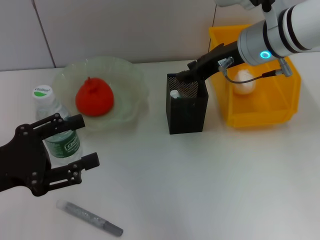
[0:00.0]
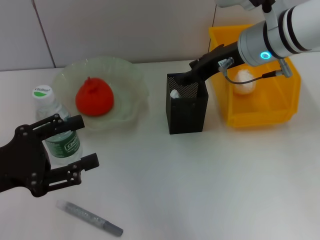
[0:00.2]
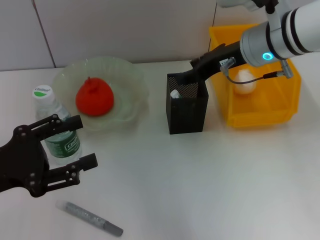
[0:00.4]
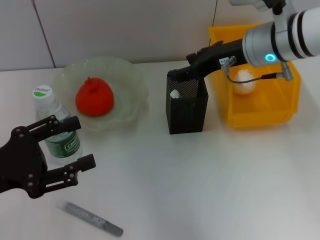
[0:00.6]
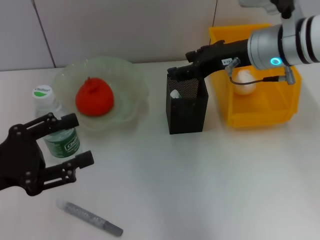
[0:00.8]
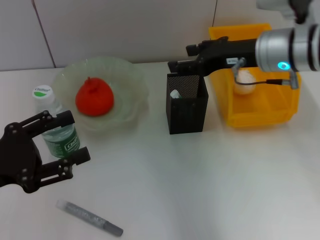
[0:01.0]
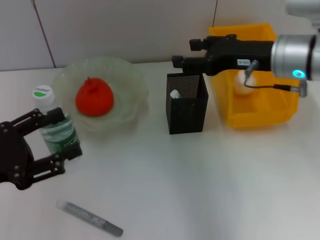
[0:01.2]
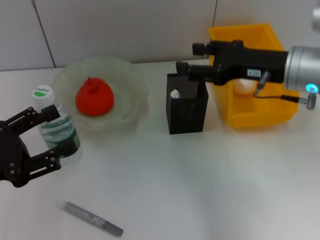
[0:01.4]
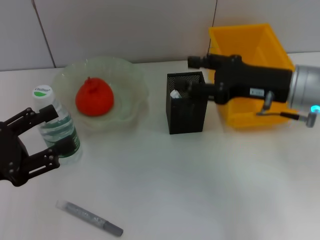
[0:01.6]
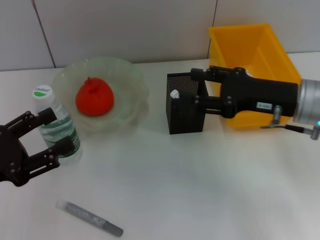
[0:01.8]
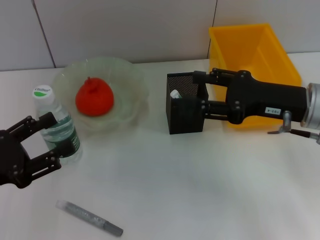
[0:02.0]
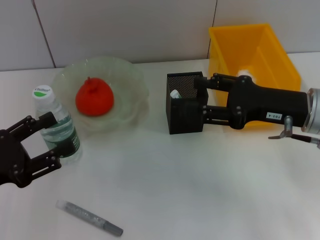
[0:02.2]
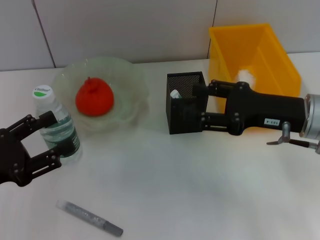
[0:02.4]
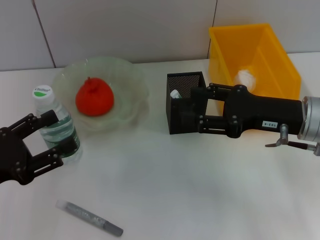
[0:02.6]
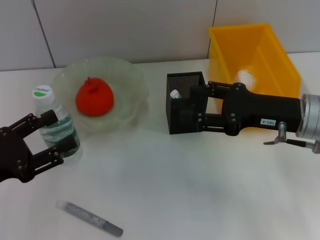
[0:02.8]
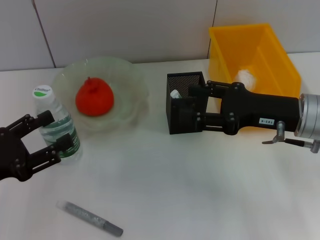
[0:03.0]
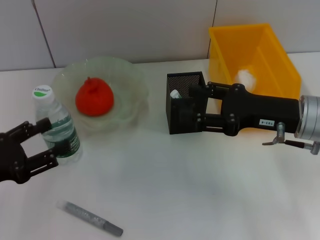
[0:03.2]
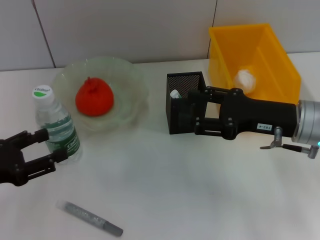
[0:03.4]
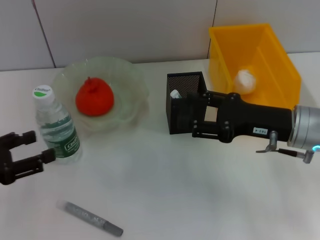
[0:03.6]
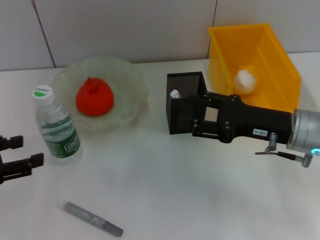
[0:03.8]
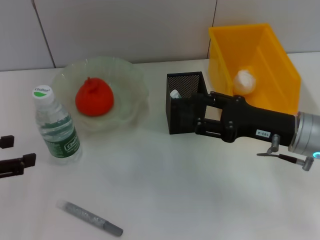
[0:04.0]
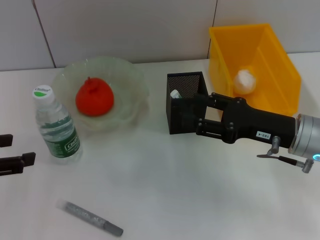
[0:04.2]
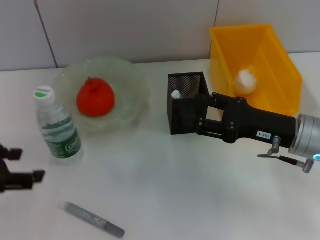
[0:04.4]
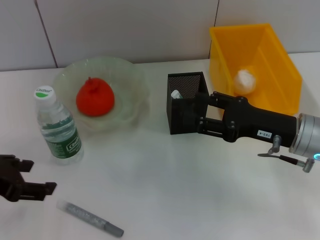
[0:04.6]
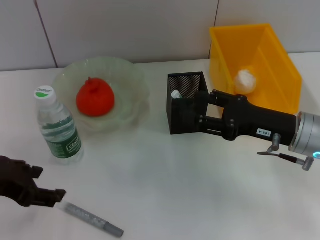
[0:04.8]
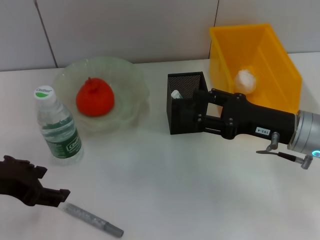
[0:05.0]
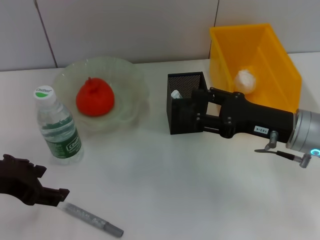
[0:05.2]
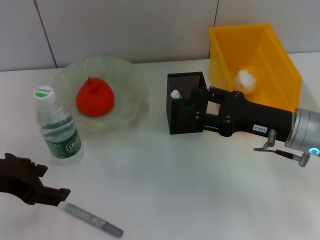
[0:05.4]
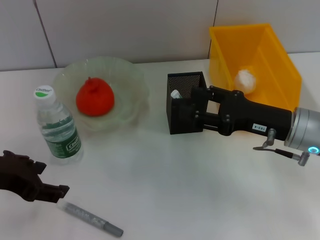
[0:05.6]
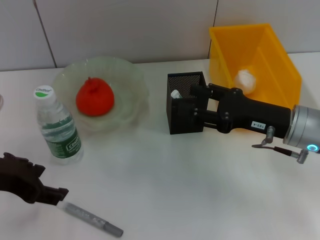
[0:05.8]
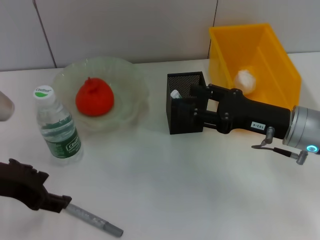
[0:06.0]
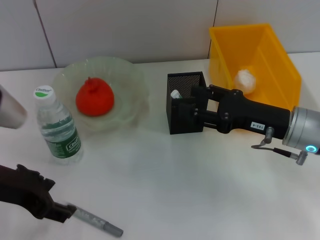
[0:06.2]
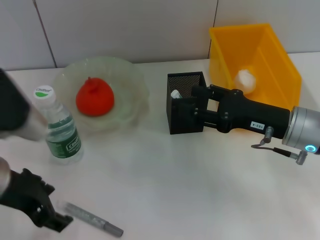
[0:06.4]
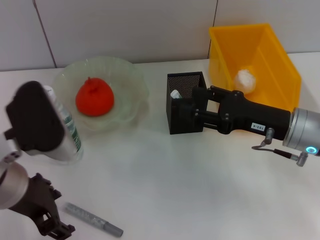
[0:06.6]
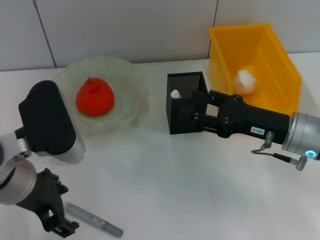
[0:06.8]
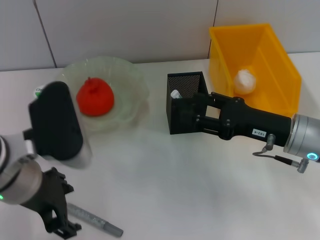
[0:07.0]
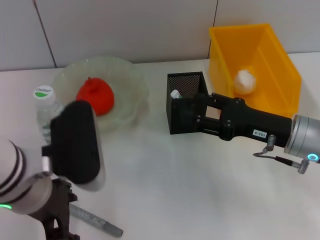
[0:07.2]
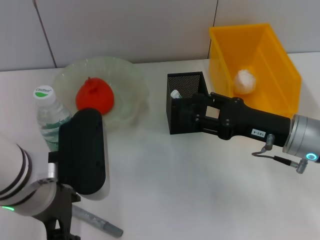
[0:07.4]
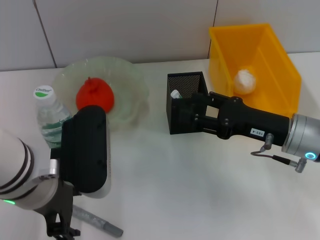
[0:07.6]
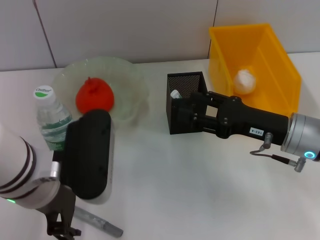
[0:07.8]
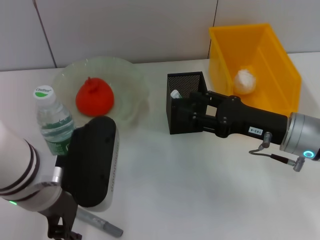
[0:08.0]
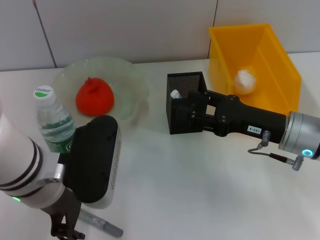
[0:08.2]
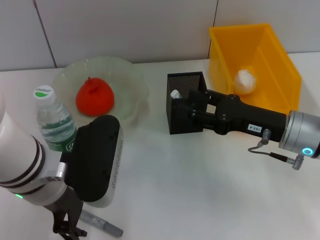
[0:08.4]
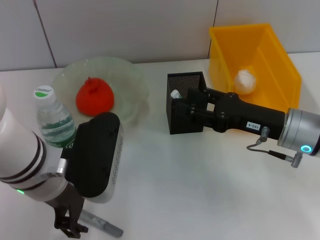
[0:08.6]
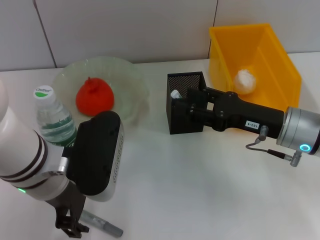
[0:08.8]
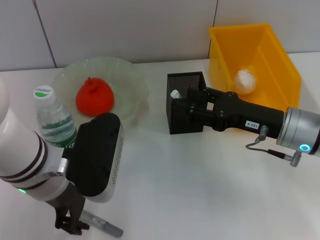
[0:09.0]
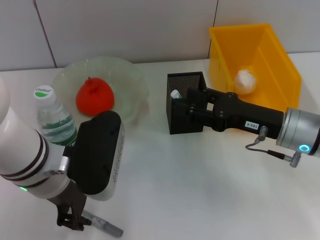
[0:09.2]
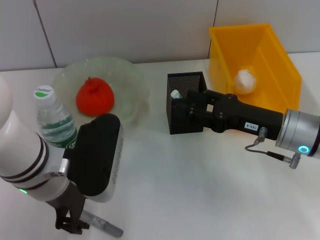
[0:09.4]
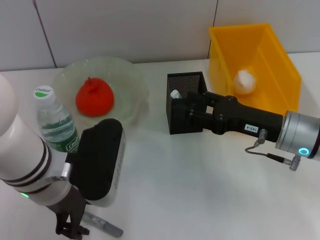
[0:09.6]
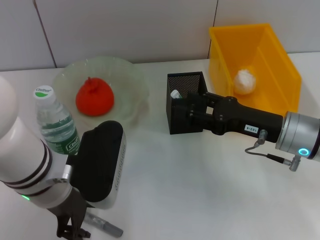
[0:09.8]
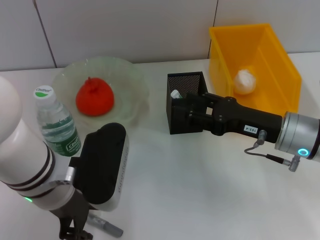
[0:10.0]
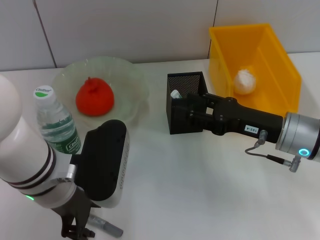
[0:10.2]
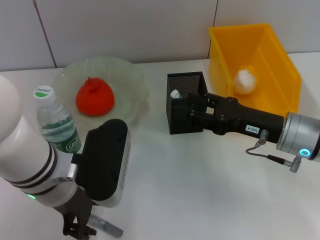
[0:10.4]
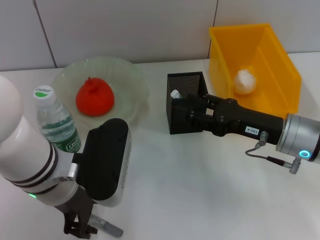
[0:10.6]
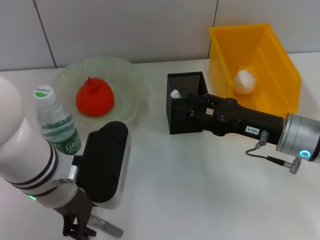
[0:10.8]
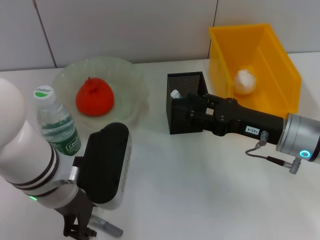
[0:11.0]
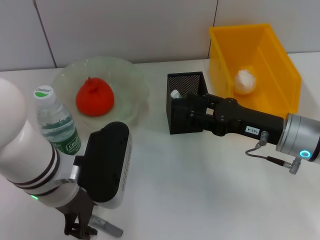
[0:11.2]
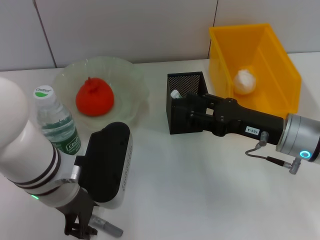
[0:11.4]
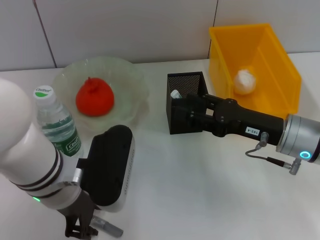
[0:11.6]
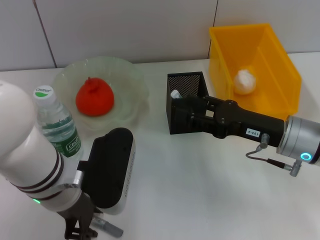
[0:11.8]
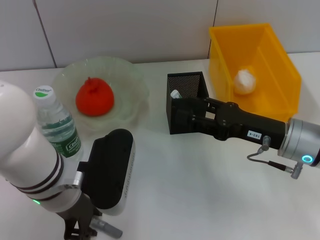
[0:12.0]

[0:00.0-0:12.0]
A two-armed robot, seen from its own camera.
0:00.0 to 0:01.6: The right gripper heads backward and to the right, covering about 10 cm, and opens its fingers.
0:01.6 to 0:03.0: The grippers stay close to where they were, moving slightly.
0:03.0 to 0:04.4: The left gripper shifts approximately 10 cm upward.
0:04.4 to 0:06.0: The left gripper travels to the right by roughly 5 cm.
0:06.0 to 0:07.6: The left gripper moves to the right, roughly 10 cm.
0:07.6 to 0:09.0: The grippers make only small movements.
0:09.0 to 0:10.4: Both grippers stay about where they are.
0:10.4 to 0:12.0: Neither gripper changes place.

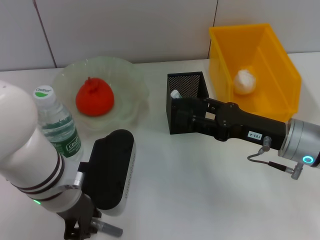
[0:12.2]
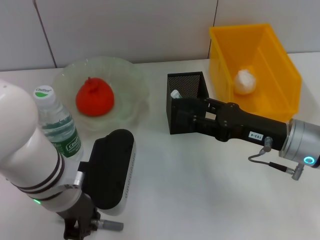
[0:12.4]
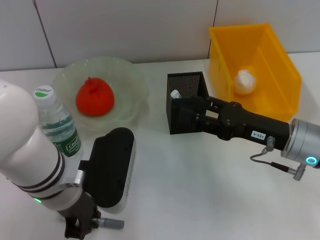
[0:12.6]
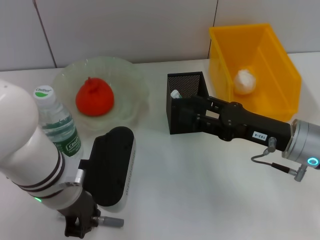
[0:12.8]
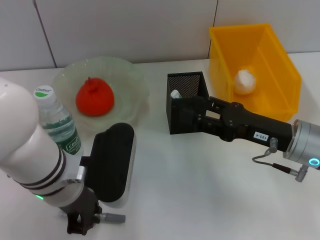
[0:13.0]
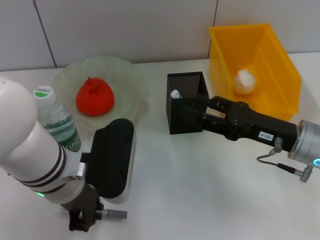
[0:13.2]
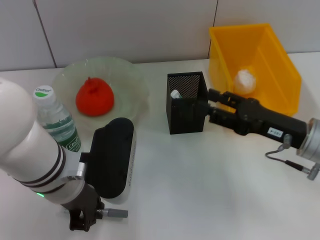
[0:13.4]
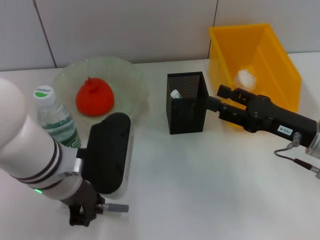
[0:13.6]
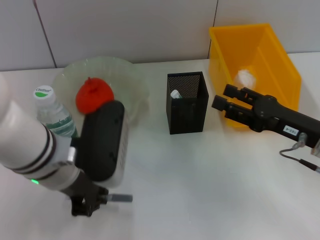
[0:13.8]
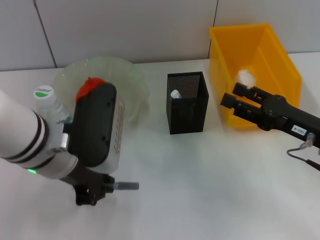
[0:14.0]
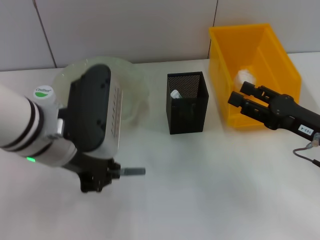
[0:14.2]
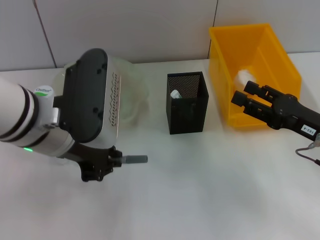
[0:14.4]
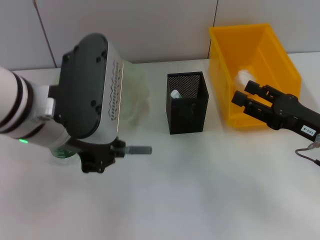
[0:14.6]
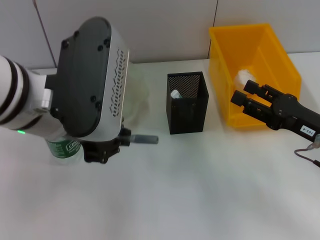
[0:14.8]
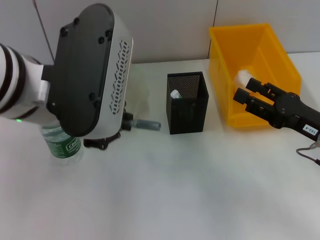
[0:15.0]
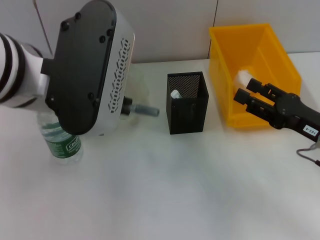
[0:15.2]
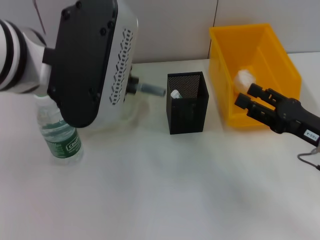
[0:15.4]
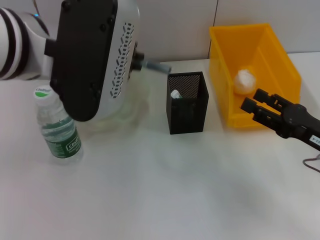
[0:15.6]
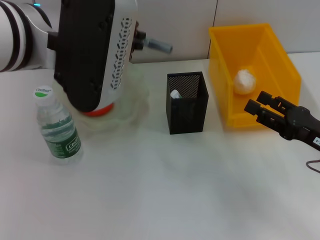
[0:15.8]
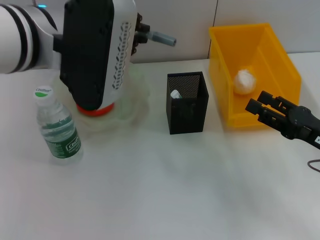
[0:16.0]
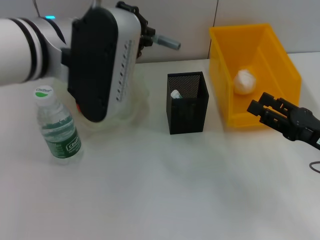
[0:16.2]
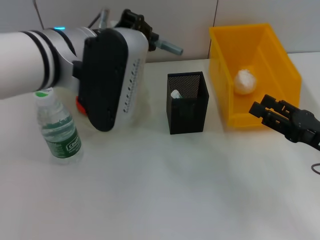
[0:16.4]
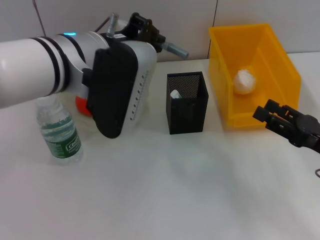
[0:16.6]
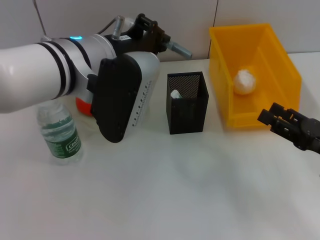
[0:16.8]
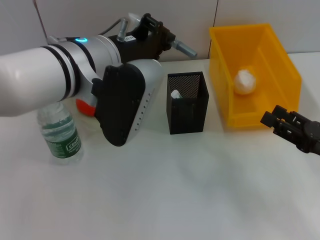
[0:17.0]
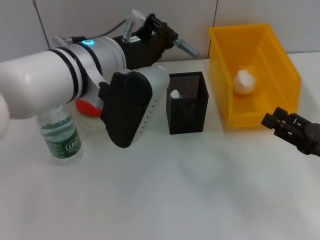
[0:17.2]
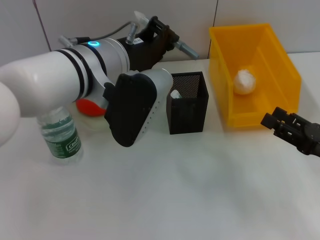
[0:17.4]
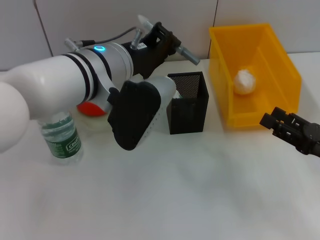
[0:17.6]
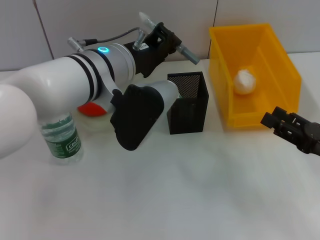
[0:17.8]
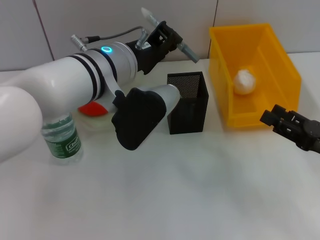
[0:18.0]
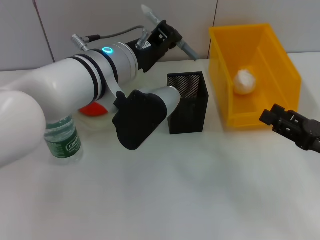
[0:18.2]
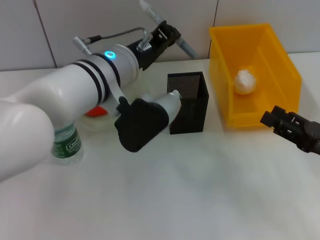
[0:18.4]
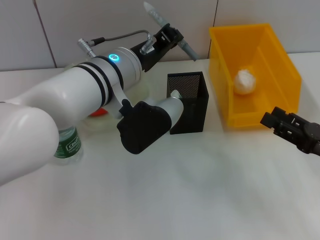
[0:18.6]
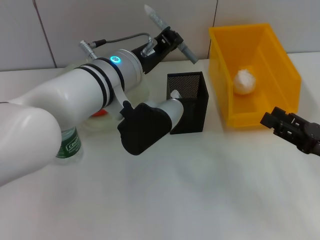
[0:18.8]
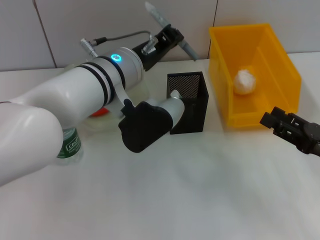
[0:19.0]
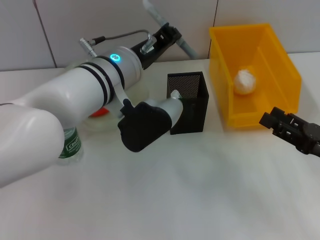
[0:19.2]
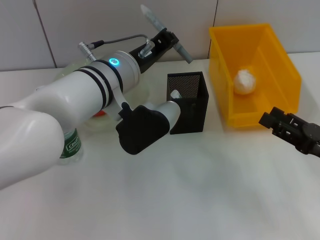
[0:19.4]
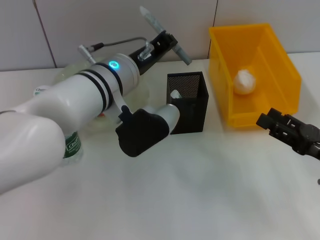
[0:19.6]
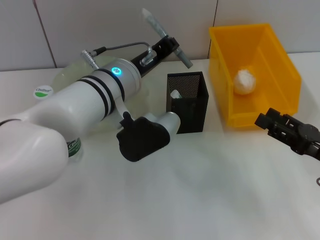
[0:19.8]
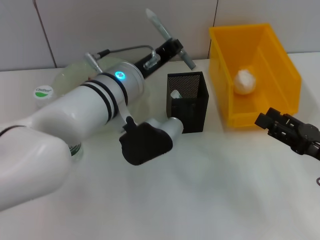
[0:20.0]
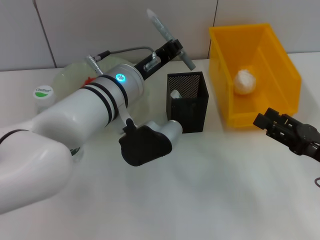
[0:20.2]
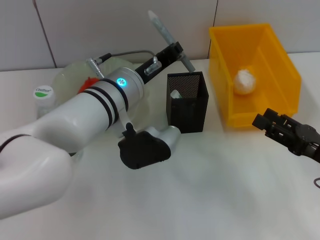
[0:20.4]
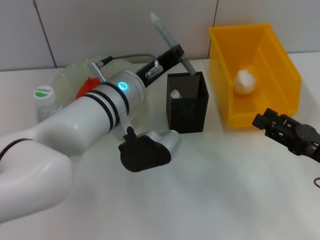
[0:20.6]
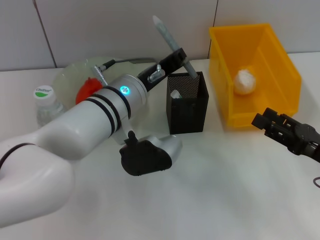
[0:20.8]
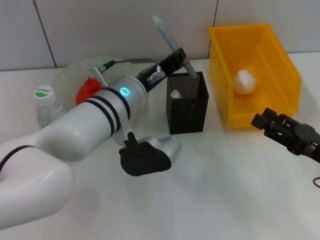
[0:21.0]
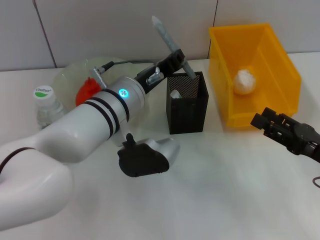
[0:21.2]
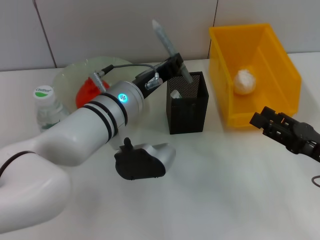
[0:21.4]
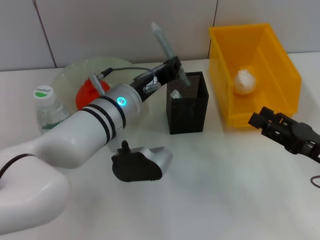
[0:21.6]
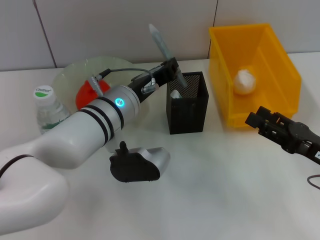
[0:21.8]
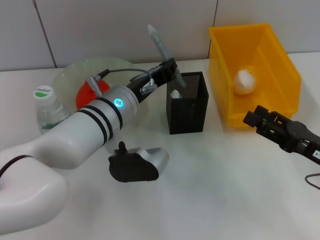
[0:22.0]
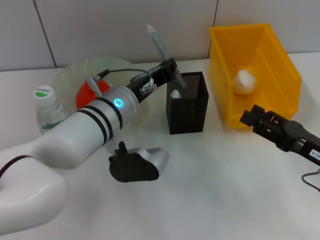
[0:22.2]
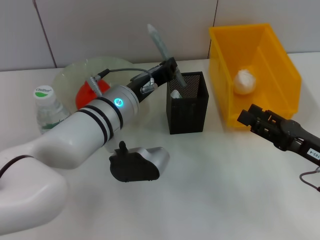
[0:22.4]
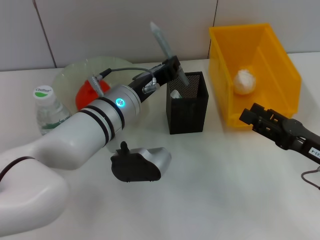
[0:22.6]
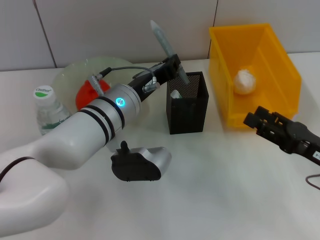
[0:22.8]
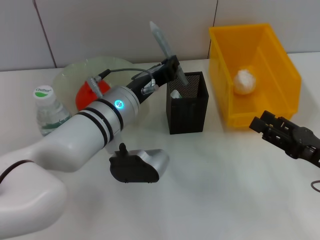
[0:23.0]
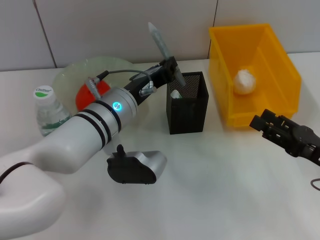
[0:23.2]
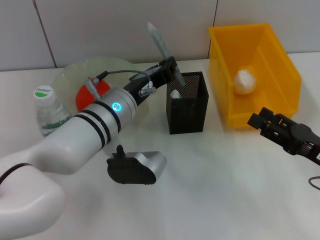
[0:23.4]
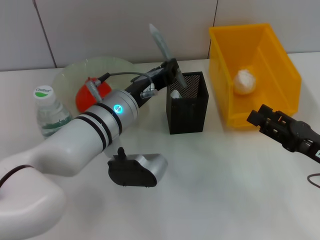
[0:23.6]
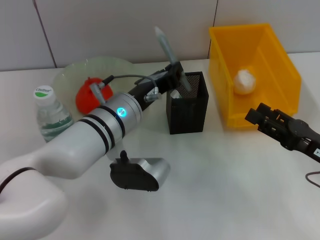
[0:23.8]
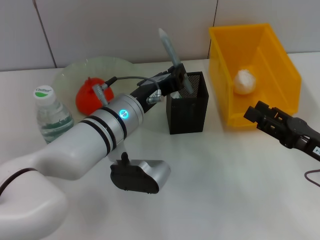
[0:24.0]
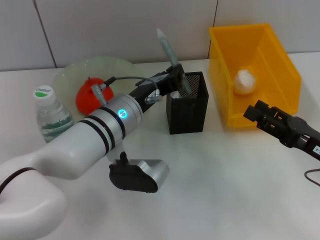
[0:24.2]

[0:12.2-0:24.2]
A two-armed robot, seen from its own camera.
0:12.2 to 0:13.8: There are only small adjustments of the grippers.
0:13.8 to 0:15.2: The left gripper shifts approximately 10 cm upward.
0:15.2 to 0:16.6: The left gripper moves about 5 cm.
0:16.6 to 0:18.2: The left gripper shifts by some 5 cm.
0:18.2 to 0:19.8: The grippers move only a little.
0:19.8 to 0:24.2: The grippers make only small movements.
